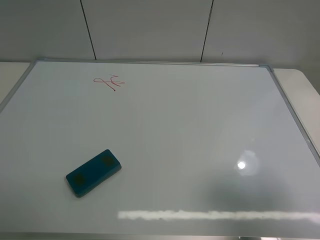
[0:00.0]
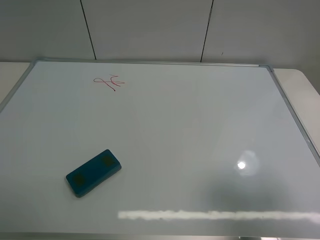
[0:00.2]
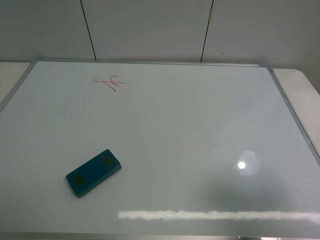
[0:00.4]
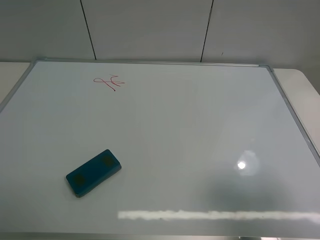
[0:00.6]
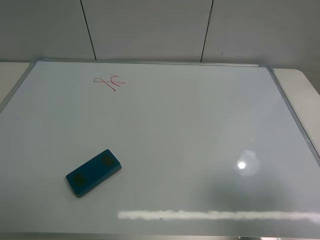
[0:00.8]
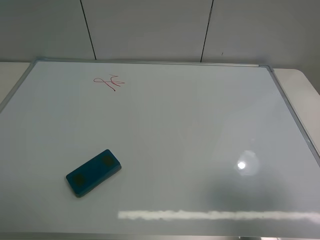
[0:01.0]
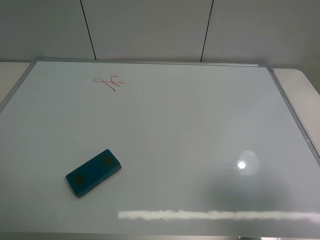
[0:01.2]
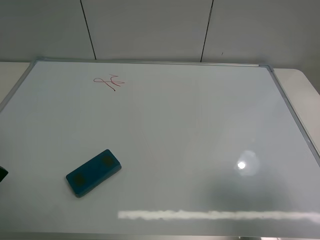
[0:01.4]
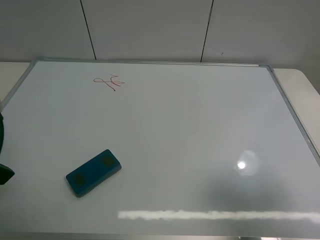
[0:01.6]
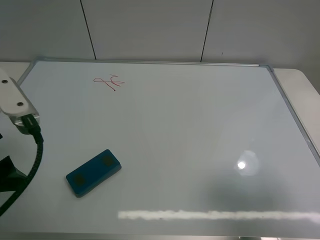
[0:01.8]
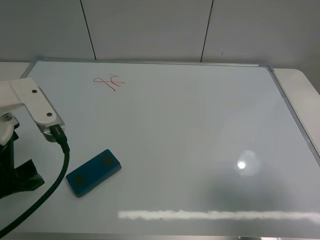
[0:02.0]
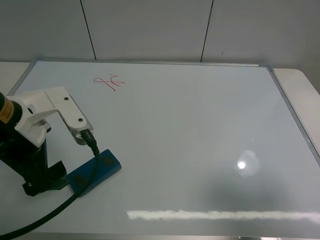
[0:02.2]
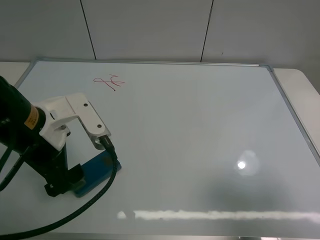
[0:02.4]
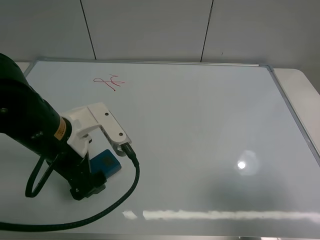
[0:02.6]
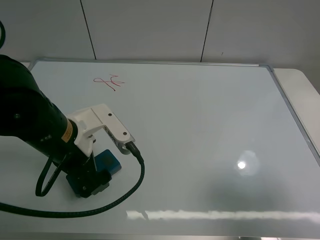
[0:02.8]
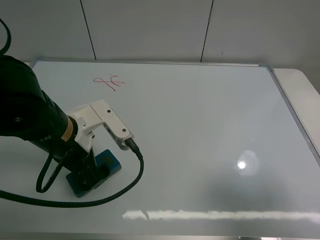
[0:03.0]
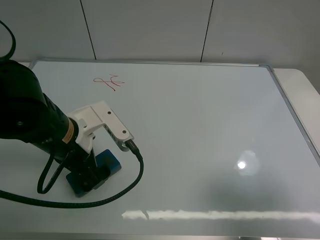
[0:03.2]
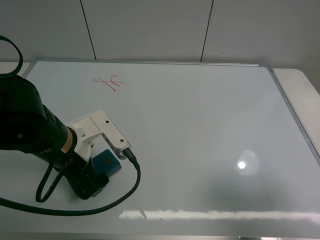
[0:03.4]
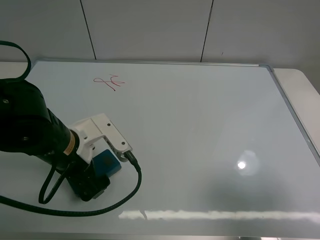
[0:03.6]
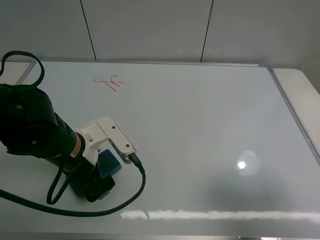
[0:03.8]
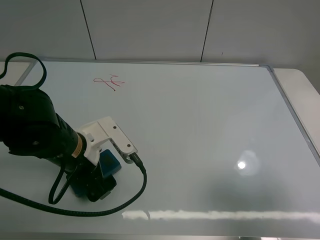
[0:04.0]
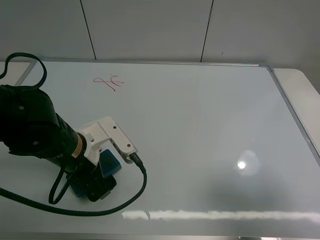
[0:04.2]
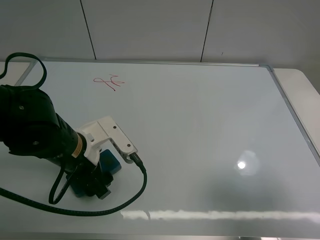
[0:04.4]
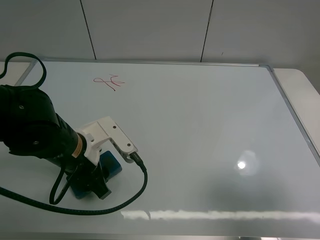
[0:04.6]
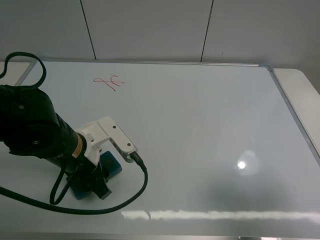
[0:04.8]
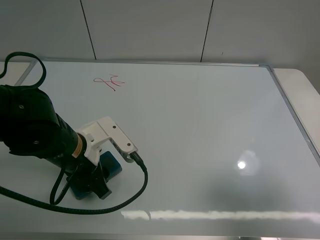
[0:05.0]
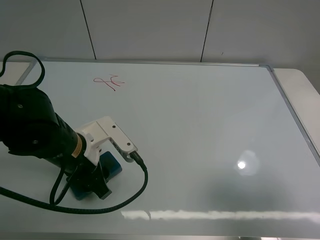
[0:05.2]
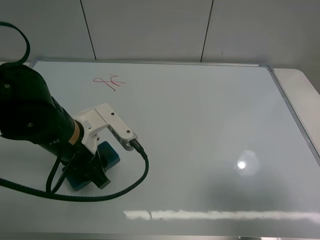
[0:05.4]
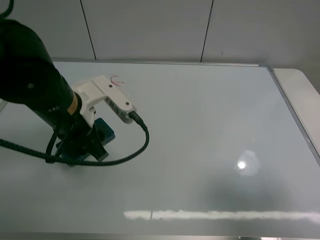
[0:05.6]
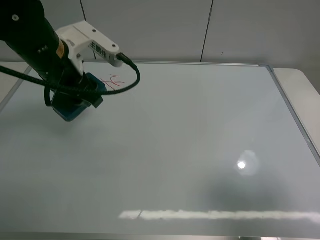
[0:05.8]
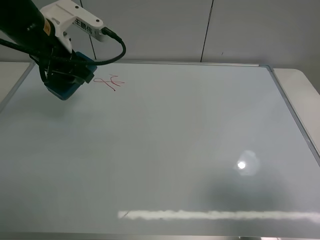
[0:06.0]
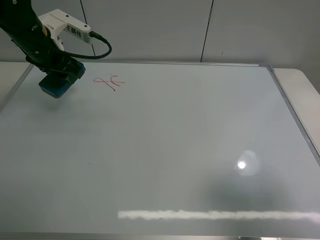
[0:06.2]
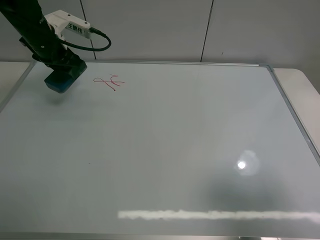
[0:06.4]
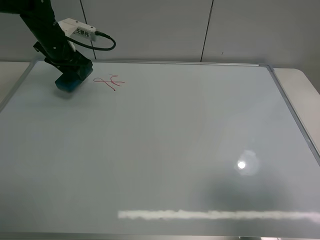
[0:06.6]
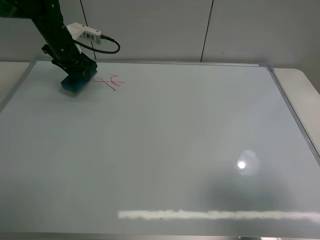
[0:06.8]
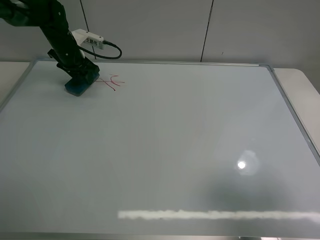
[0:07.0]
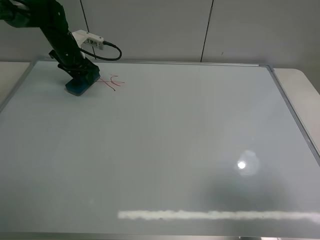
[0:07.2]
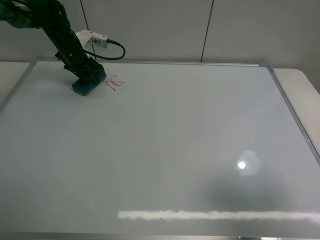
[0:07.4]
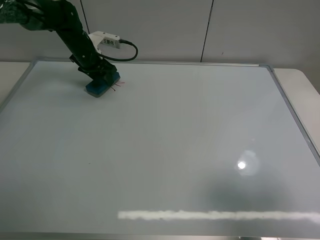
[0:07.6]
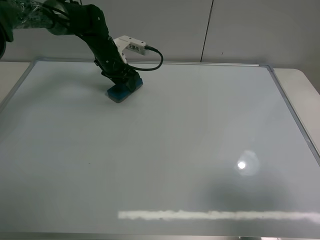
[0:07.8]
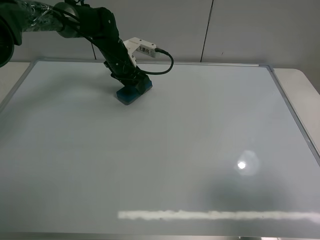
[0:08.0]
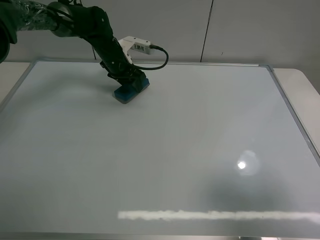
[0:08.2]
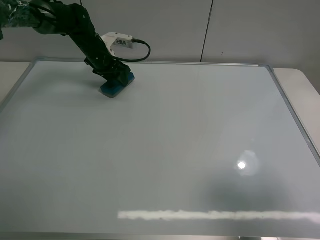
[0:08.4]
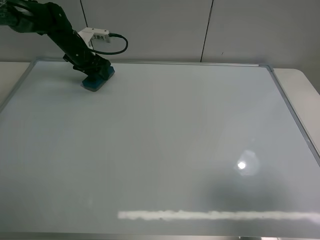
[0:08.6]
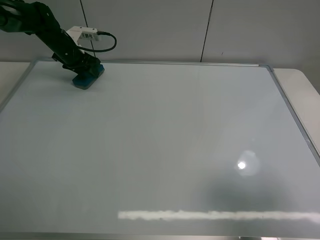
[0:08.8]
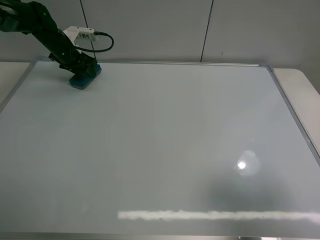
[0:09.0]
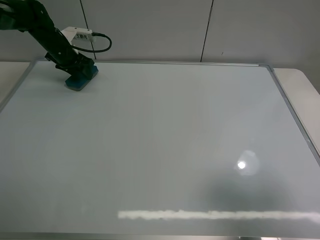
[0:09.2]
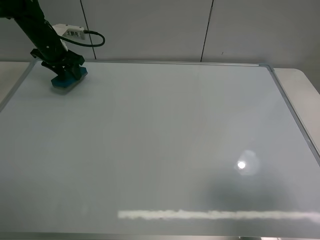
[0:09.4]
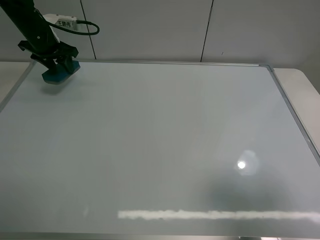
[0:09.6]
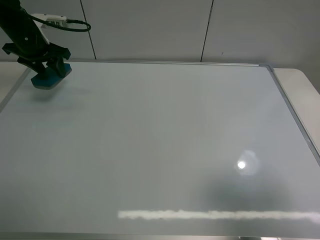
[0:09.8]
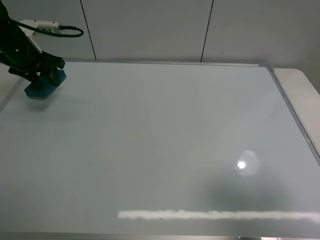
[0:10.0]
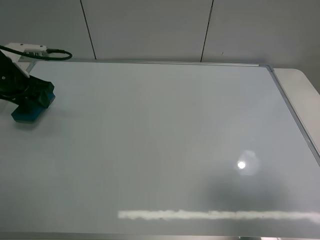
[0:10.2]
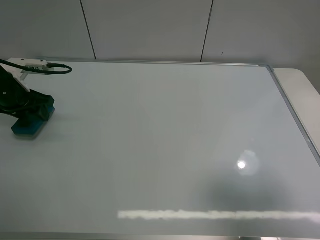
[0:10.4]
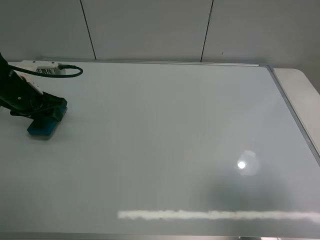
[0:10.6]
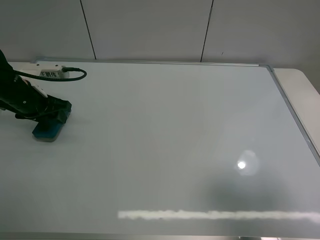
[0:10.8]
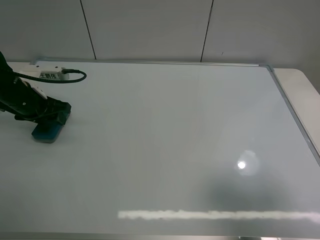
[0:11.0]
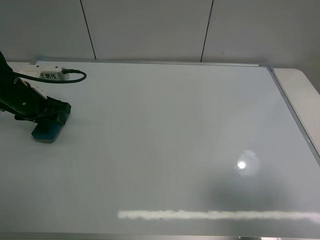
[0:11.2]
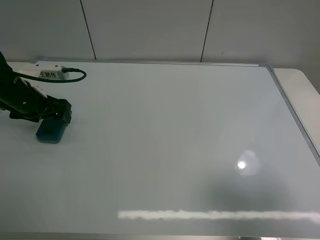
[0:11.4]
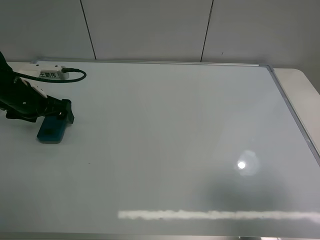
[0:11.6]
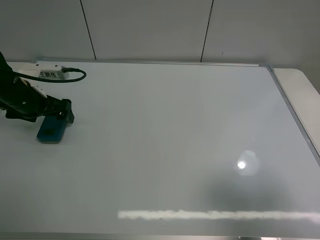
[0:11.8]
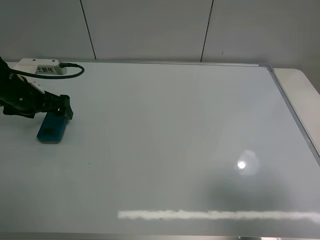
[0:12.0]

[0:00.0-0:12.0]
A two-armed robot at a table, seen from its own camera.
Task of the whole recording: use the left claw to pick up the whiteboard eraser, wipe the notes on the whiteboard clean, and then put them back in place.
Step, 0:00.0 to 0:04.4: Grasp the eraser with the left gripper.
Step, 0:04.6 to 0:09.0: Grasp the eraser and wipe the blackboard with the left gripper.
Step, 0:09.2 to 0:11.4: Place the eraser with the left gripper.
0:01.6 to 0:03.0: The left gripper moves to the right, downward and forward, roughly 15 cm.
0:03.0 to 0:04.4: The left gripper closes its fingers.
0:04.4 to 0:06.0: The left gripper goes about 20 cm forward, upward and to the left.
0:06.0 to 0:07.6: The left gripper goes about 20 cm forward and downward.
0:07.6 to 0:09.0: The left gripper travels to the left by approximately 10 cm.
0:09.0 to 0:10.4: The left gripper heads backward, covering roughly 20 cm.
0:10.4 to 0:12.0: The left gripper opens its fingers.

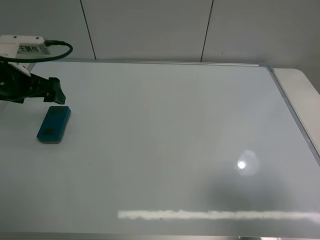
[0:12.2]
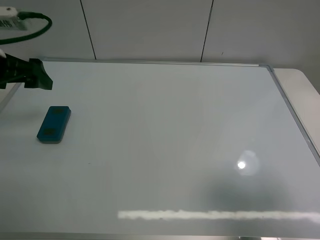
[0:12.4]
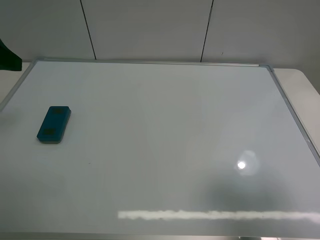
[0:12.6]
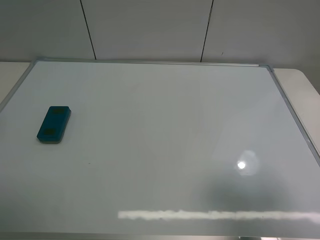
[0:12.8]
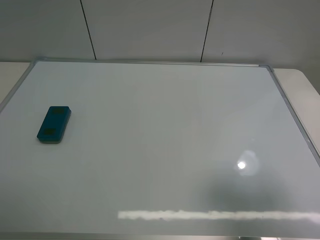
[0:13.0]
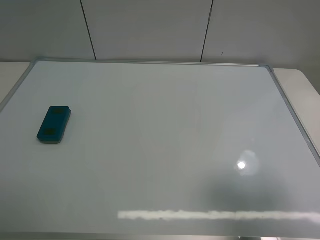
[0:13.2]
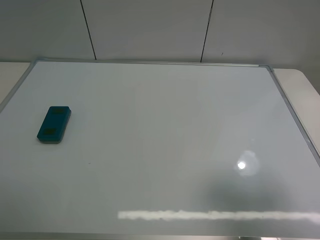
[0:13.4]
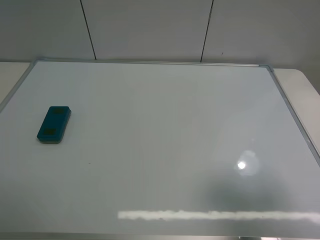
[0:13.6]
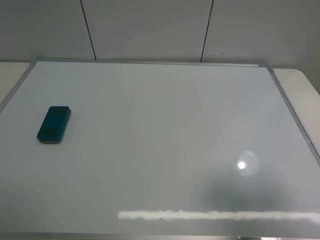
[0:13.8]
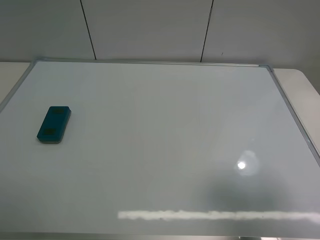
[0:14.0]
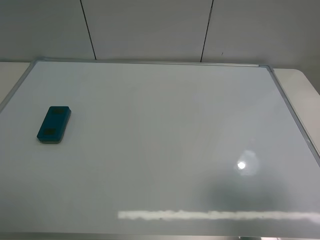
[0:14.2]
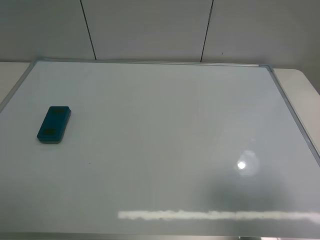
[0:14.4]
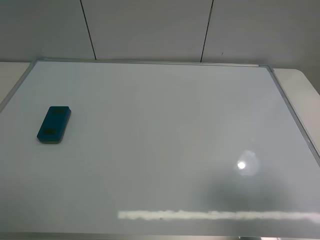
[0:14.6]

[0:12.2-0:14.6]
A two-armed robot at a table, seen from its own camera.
Task of the whole recording: use the left claw to pick up the whiteboard eraser, wipe the notes on the whiteboard clean, and then put them back in place.
0:12.2 to 0:13.4: The left gripper moves backward and upward, roughly 35 cm.

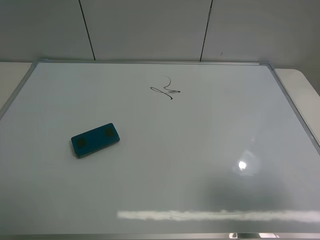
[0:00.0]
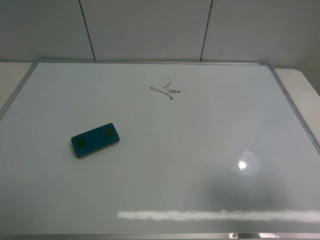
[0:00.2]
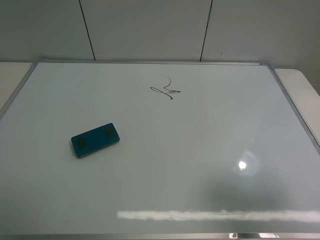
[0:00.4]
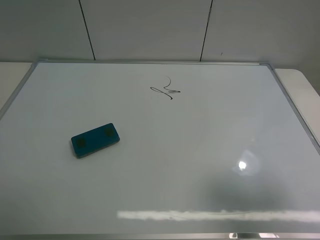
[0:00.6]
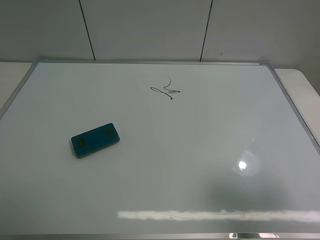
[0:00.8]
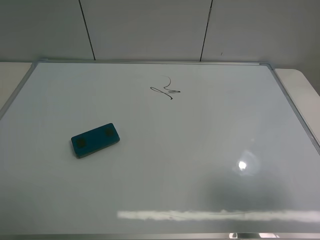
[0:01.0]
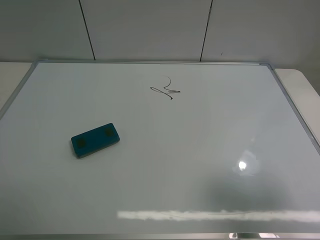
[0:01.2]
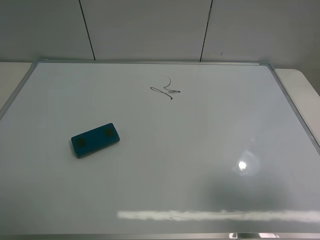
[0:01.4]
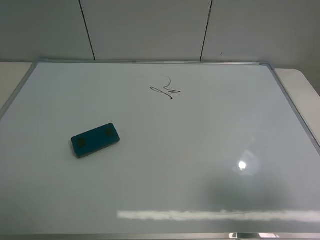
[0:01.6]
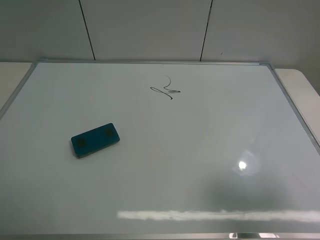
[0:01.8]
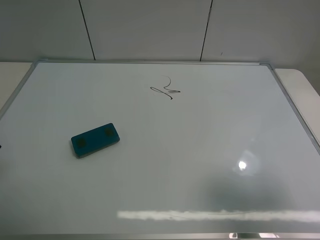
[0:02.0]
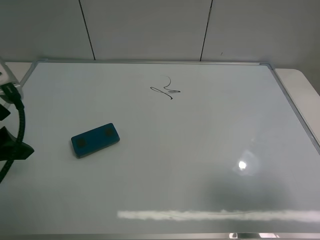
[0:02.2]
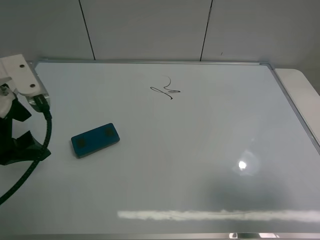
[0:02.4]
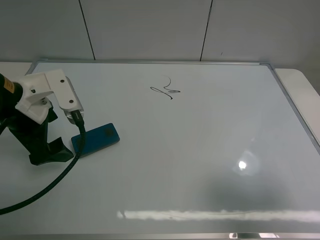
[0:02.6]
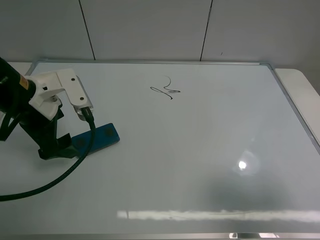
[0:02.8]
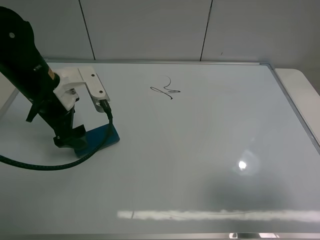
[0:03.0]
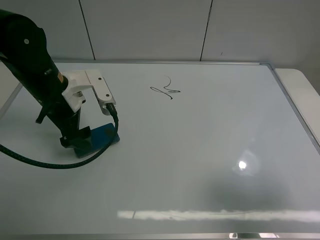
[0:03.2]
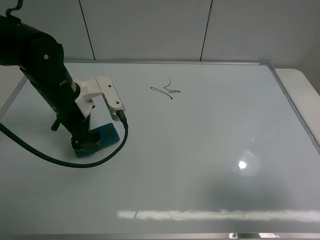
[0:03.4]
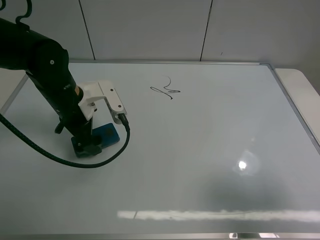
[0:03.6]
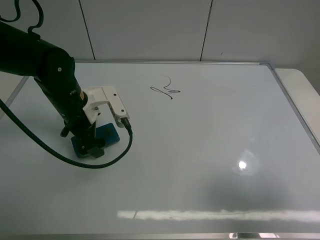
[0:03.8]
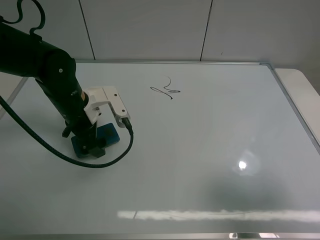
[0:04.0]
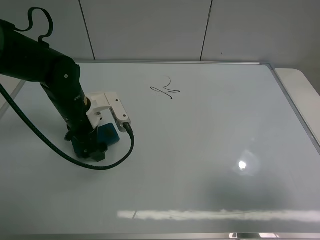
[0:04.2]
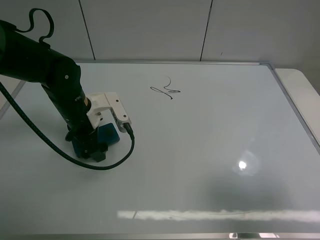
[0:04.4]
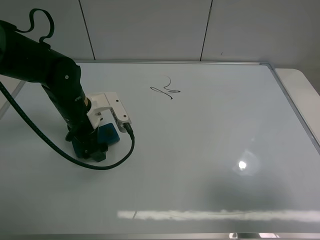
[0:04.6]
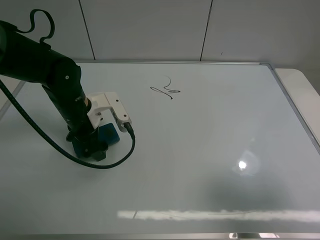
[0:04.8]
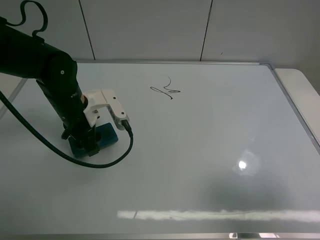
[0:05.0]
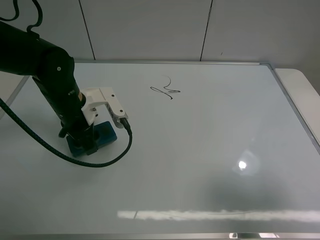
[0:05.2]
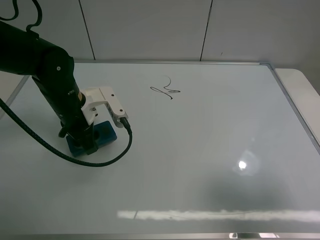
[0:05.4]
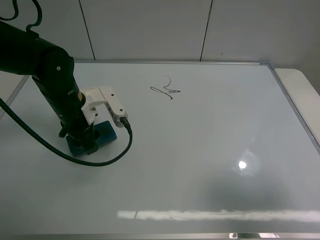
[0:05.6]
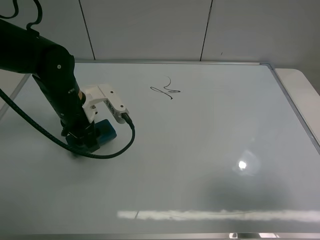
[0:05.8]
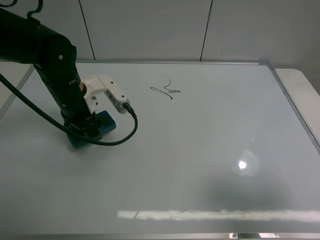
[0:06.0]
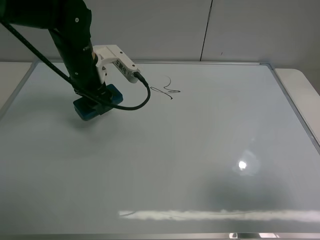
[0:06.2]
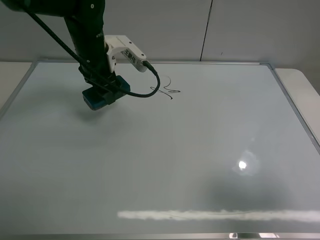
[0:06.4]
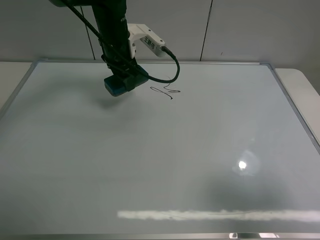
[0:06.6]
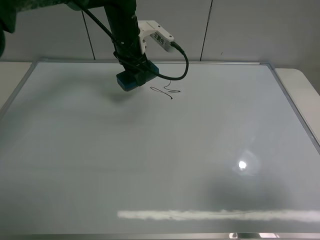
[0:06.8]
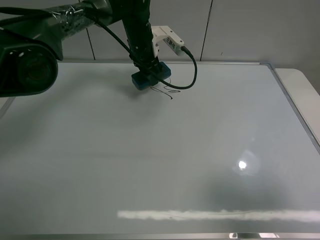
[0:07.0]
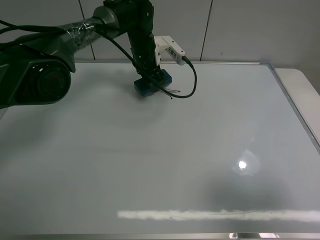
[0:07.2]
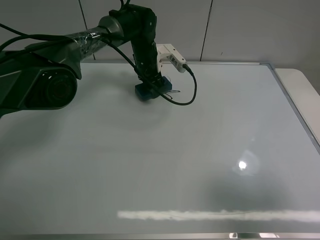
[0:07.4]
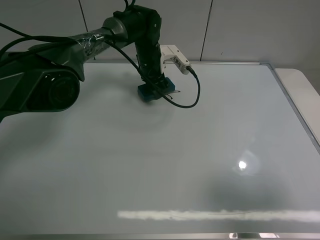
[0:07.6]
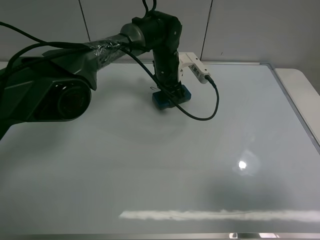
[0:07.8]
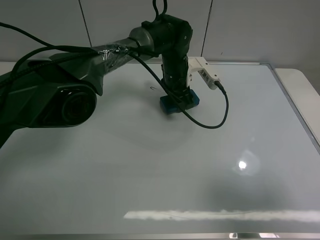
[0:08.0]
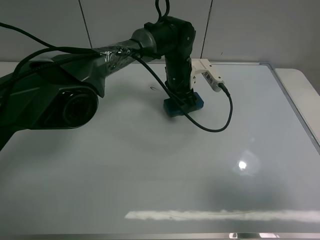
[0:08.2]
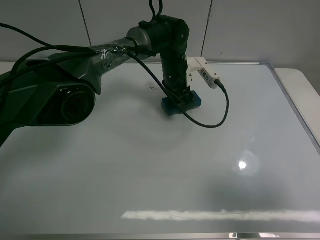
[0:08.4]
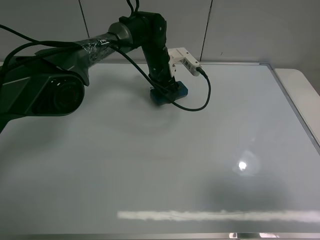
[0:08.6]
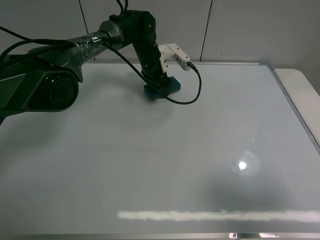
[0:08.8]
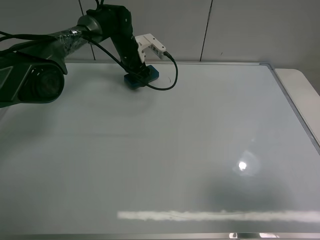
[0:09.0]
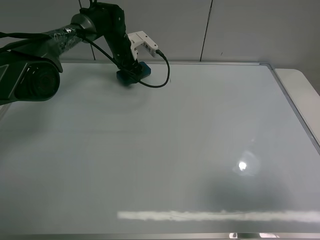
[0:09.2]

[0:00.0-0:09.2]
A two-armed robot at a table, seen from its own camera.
Task of the whole recording: use the left claw to pick up the whiteboard eraser, wipe the notes on the whiteboard clean, and then put them back in place.
Step, 0:00.0 to 0:04.8: Grasp the eraser with the left gripper.
0:01.6 to 0:03.0: The left gripper heads forward, to the right and downward, covering some 25 cm.
0:03.0 to 0:04.6: The left gripper shifts approximately 5 cm downward.
0:04.6 to 0:06.2: The left gripper shifts about 10 cm upward and forward, and closes its fingers.
0:06.2 to 0:07.6: The left gripper moves forward, to the right and downward, some 20 cm.
0:07.6 to 0:09.2: The left gripper moves to the left and forward, some 10 cm.
